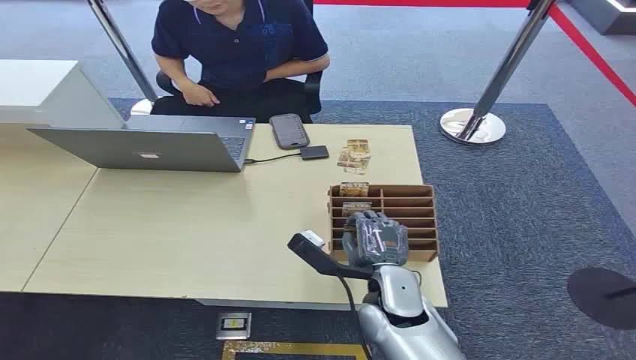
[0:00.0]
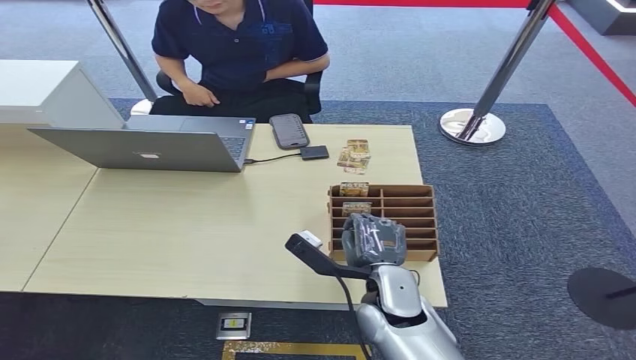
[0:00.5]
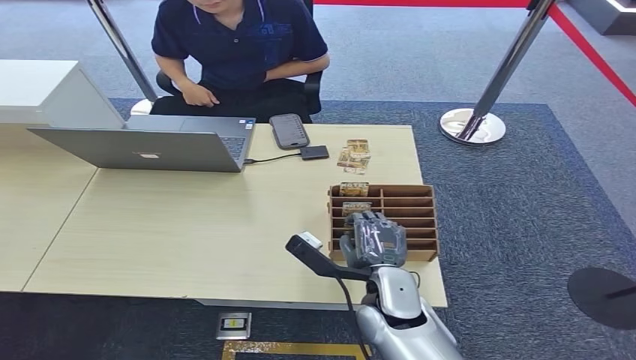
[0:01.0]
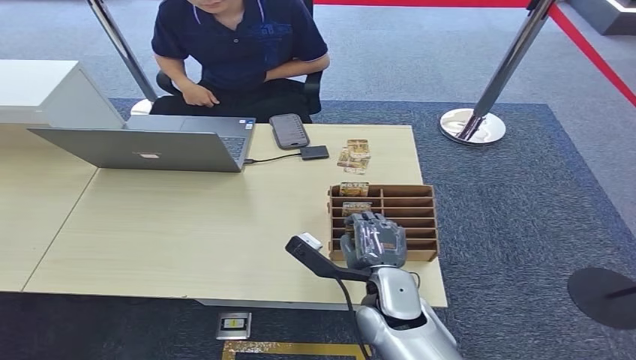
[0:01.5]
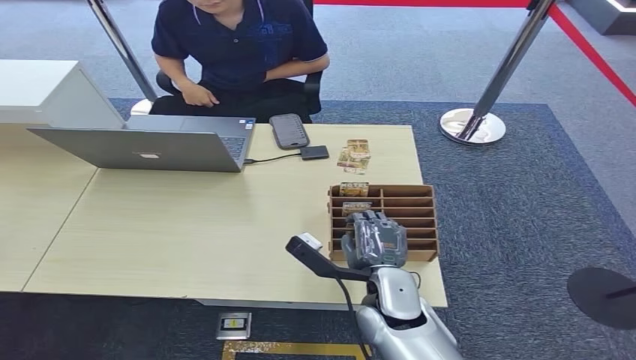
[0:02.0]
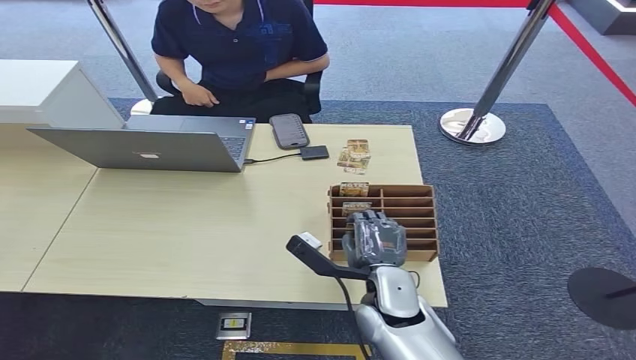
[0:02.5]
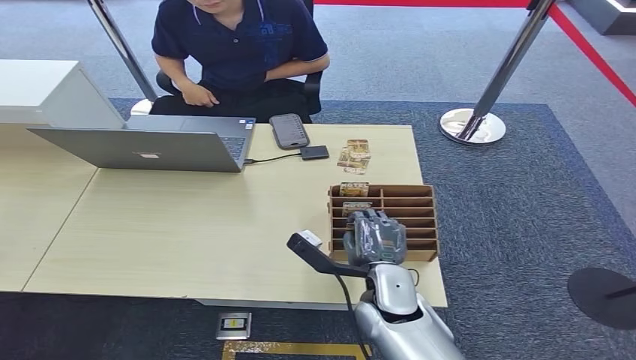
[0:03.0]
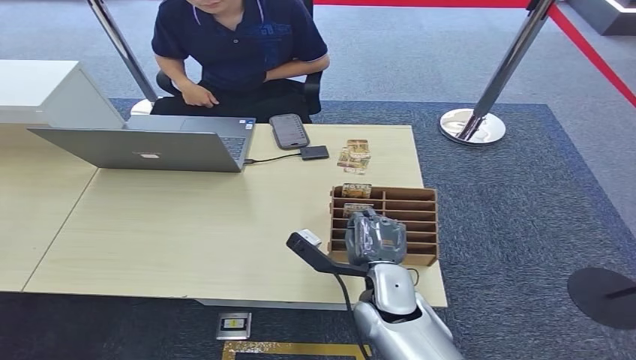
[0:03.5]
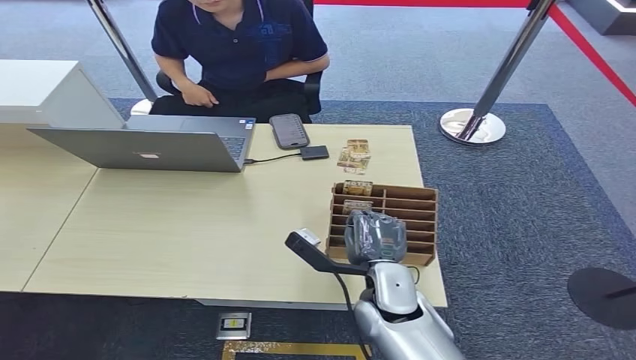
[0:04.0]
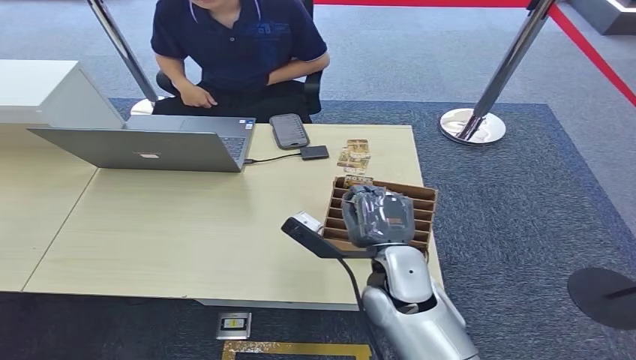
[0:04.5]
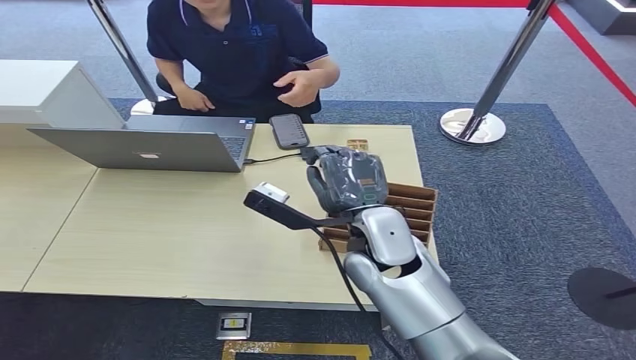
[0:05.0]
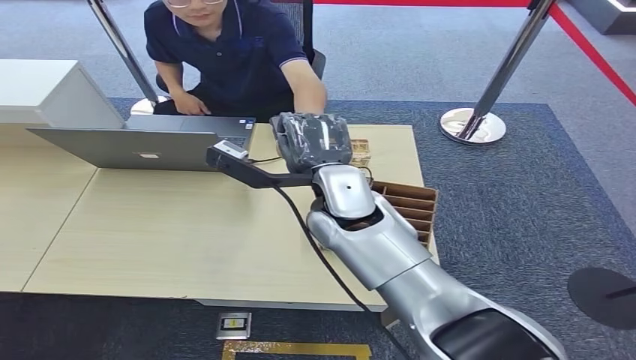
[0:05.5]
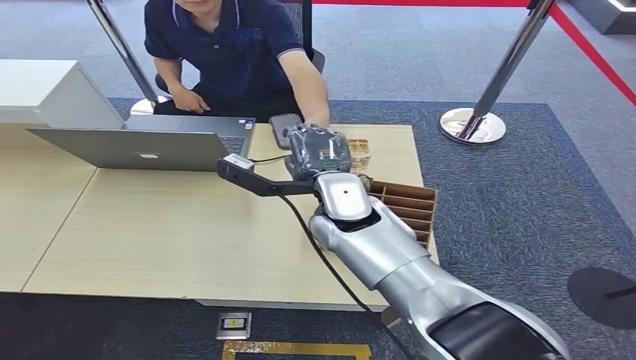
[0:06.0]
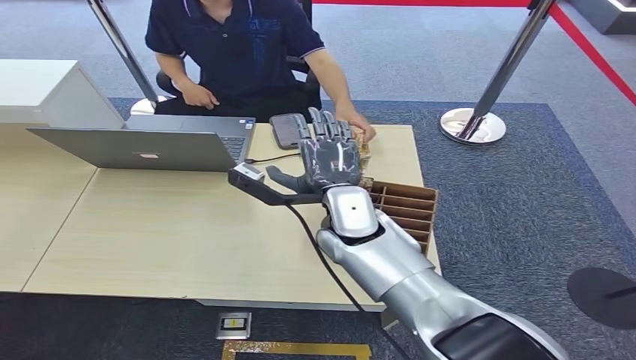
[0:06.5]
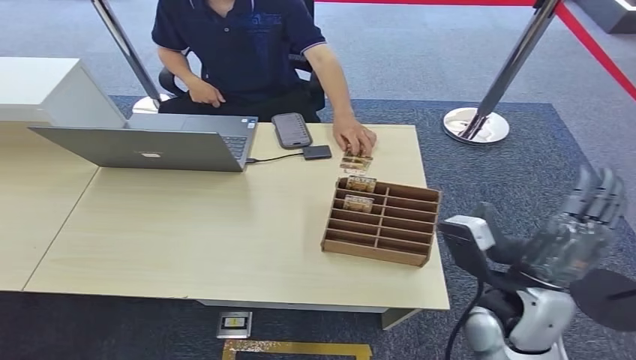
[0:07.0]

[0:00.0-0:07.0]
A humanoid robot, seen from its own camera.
Task of the whole recording: Pick up the card and hand it to the target person.
Step, 0:00.0 to 0:05.0: Pick up the key card from the card box.
Step, 0:05.5 to 0:07.0: Hand the key card to the target.
0:02.0 to 0:03.5: Both hands stay about where they are.
0:03.5 to 0:05.0: The right hand shifts some 15 cm upward and forward.
